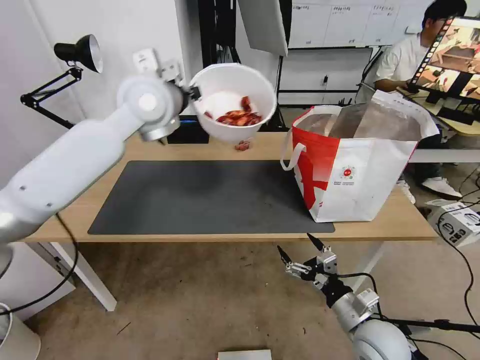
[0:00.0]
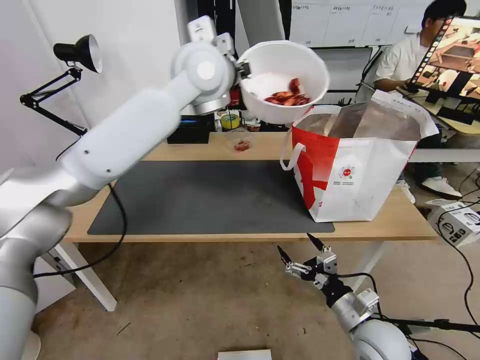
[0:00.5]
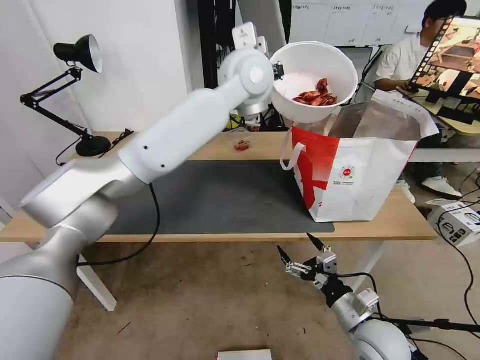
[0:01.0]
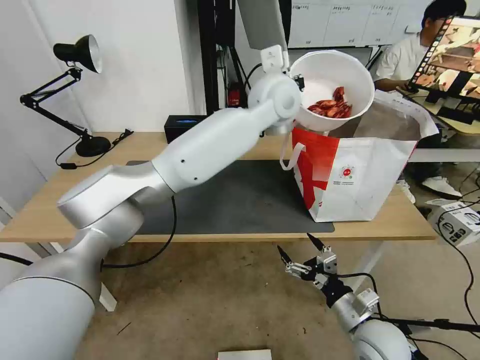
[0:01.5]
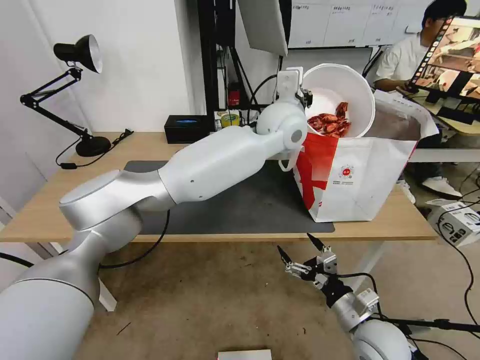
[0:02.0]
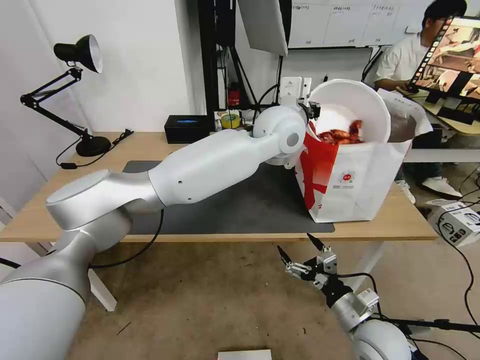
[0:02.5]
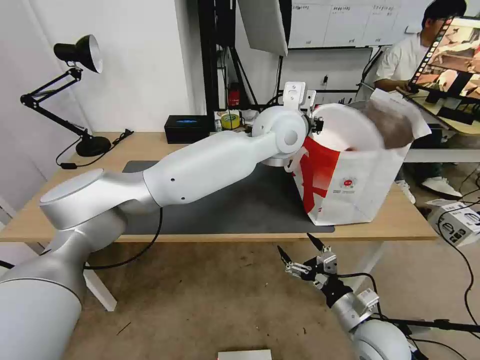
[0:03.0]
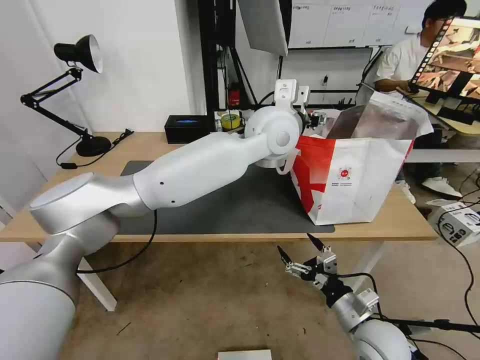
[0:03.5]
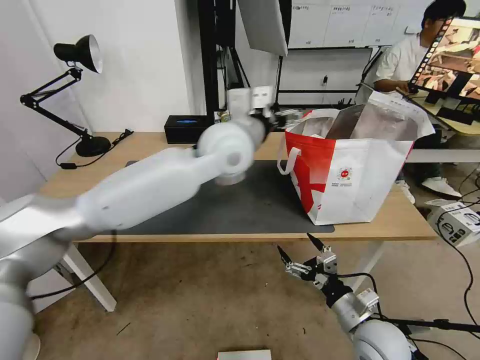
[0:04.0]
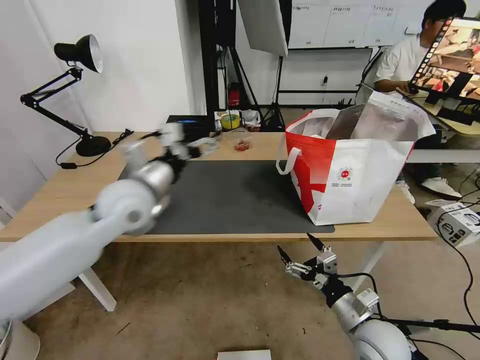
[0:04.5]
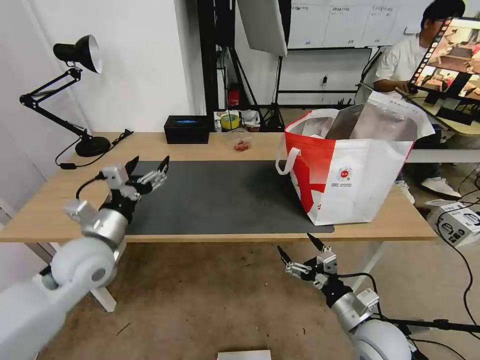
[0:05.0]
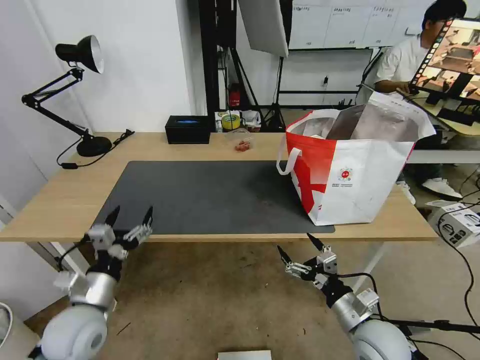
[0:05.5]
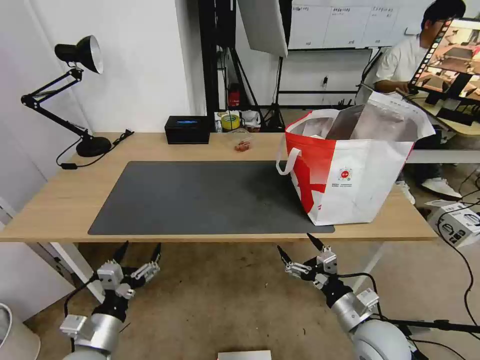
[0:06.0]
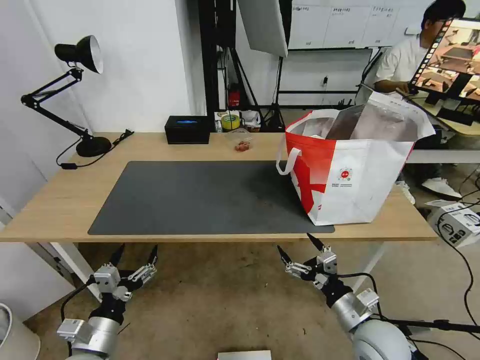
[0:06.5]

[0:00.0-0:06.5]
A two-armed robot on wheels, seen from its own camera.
Task of the whole recording: Pick up the trash from the table and place it into the takeout bag.
0:00.0 to 0:02.0: The left gripper heads to the right, covering about 25 cm.
0:02.0 to 0:04.5: The left gripper is displaced to the left and backward by some 35 cm, and opens.
0:04.5 to 0:06.5: The left gripper is displaced backward and downward by roughly 30 cm.
